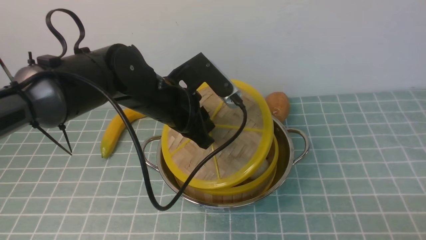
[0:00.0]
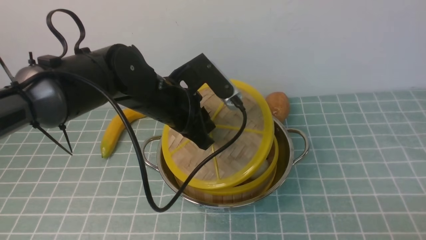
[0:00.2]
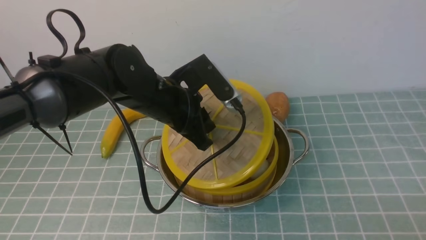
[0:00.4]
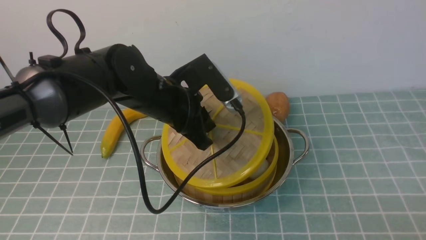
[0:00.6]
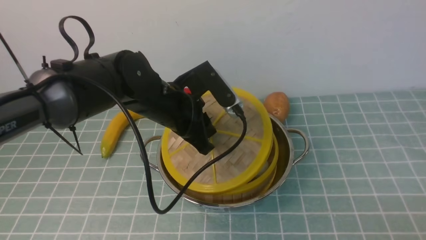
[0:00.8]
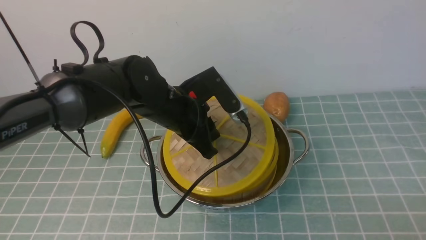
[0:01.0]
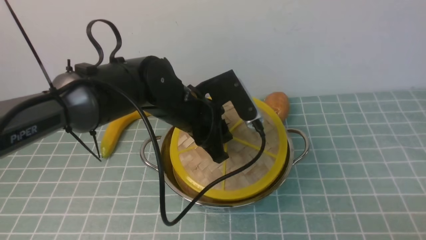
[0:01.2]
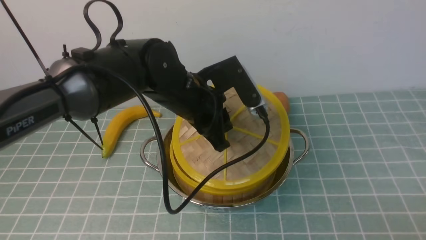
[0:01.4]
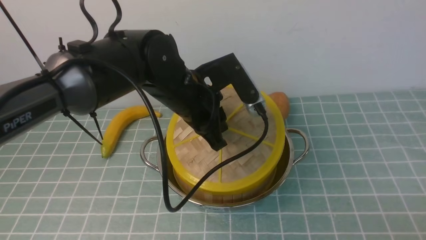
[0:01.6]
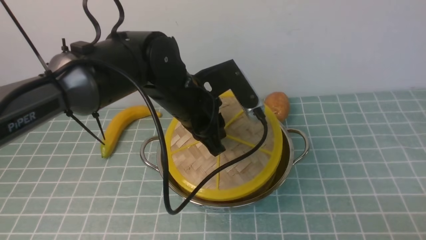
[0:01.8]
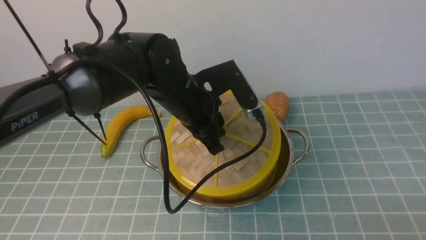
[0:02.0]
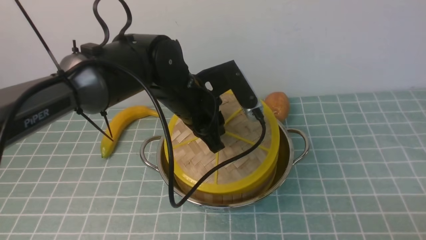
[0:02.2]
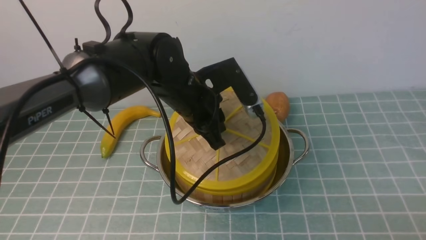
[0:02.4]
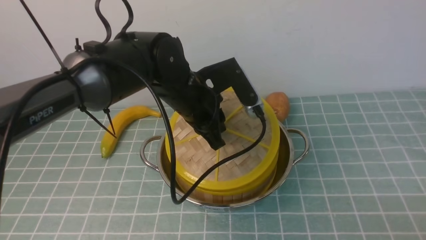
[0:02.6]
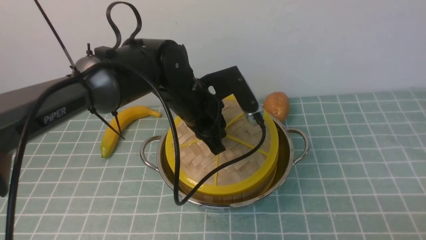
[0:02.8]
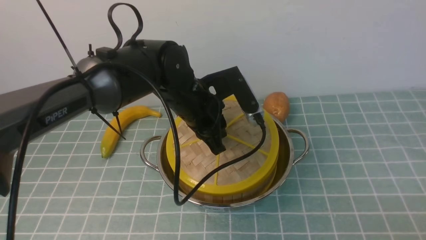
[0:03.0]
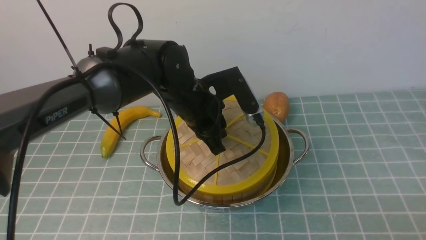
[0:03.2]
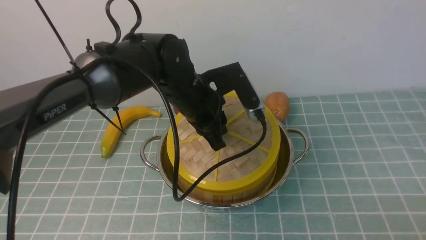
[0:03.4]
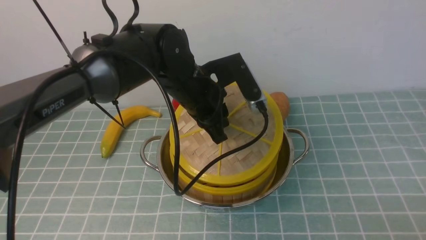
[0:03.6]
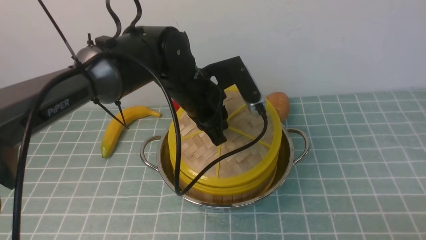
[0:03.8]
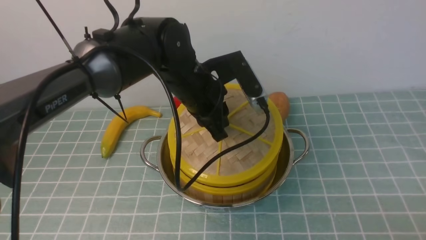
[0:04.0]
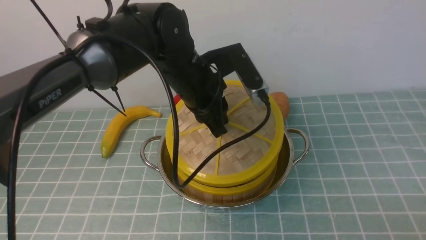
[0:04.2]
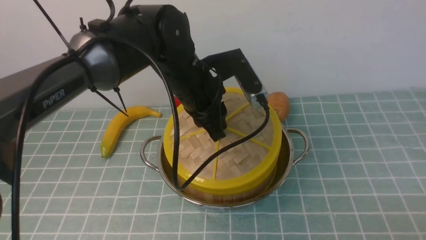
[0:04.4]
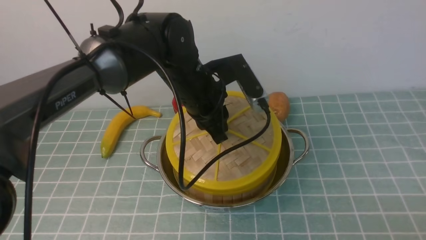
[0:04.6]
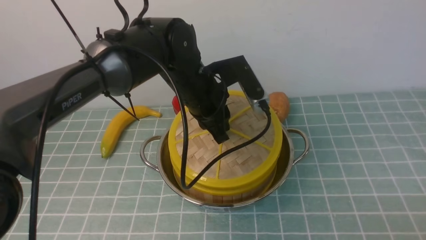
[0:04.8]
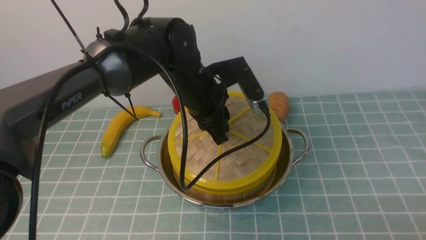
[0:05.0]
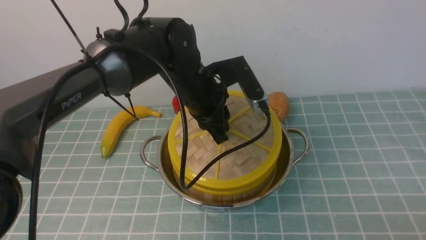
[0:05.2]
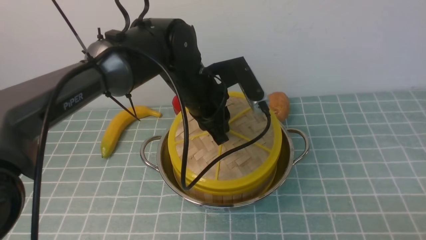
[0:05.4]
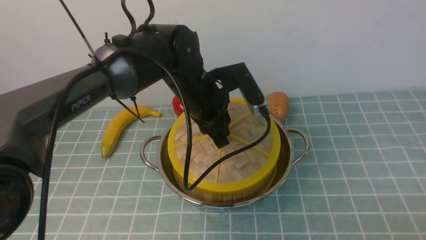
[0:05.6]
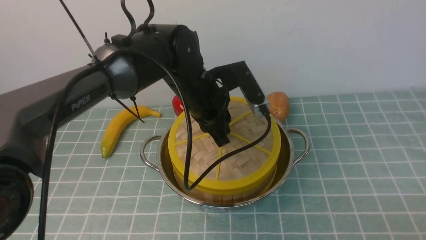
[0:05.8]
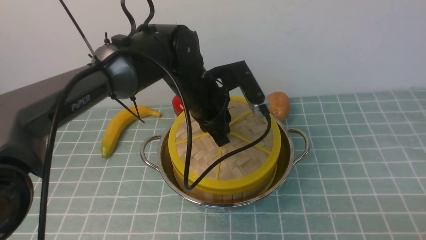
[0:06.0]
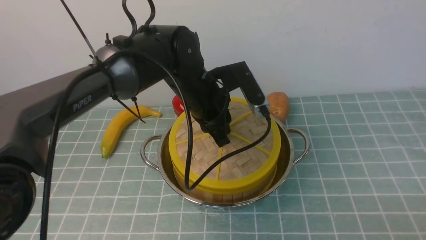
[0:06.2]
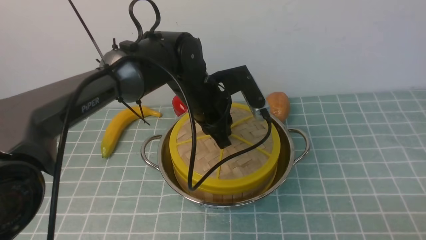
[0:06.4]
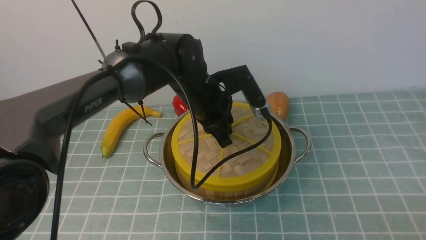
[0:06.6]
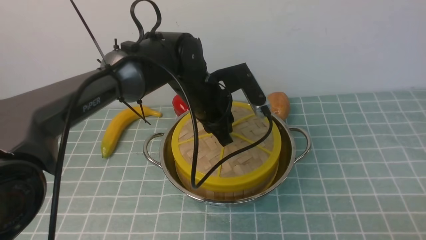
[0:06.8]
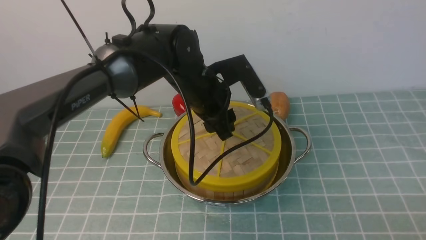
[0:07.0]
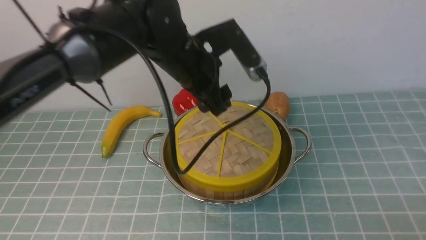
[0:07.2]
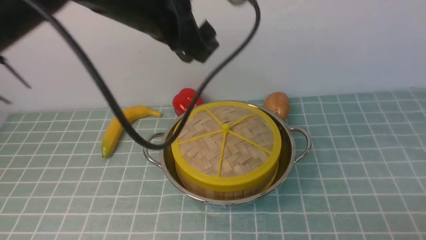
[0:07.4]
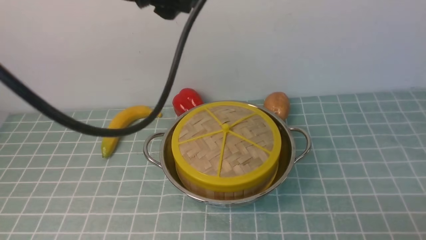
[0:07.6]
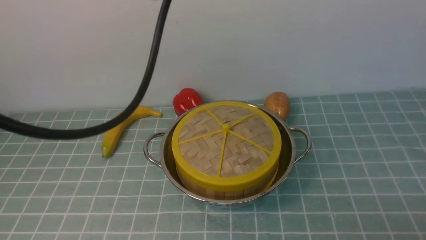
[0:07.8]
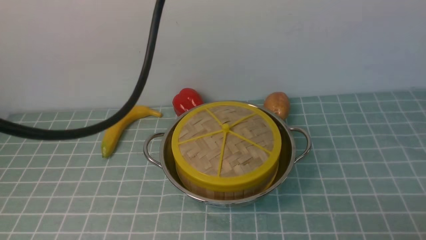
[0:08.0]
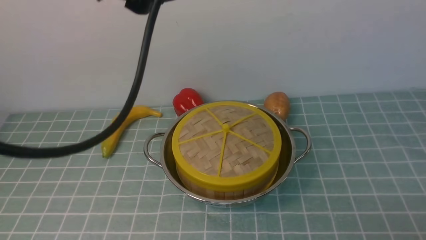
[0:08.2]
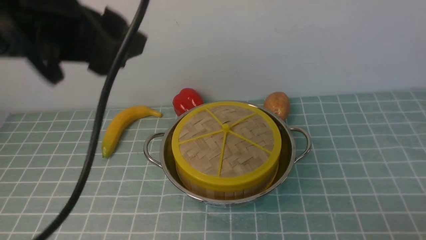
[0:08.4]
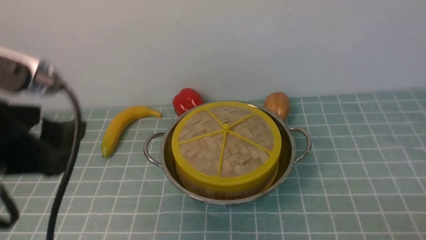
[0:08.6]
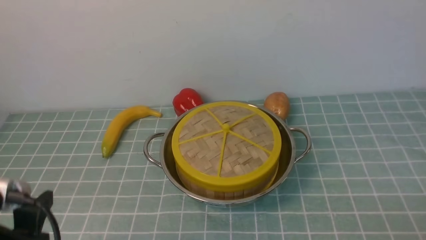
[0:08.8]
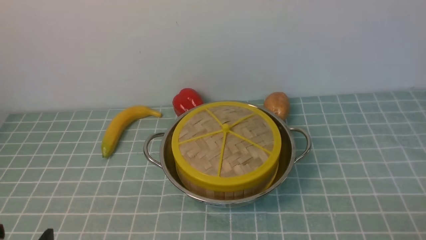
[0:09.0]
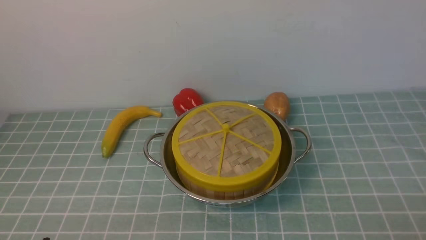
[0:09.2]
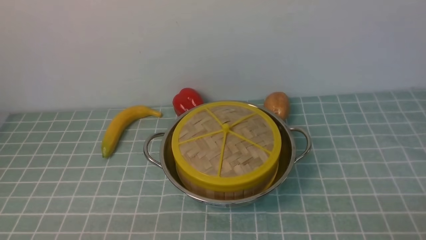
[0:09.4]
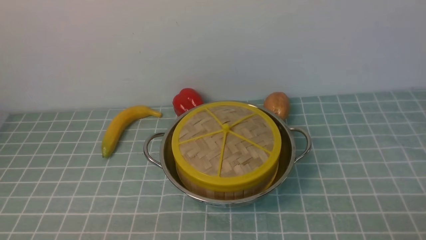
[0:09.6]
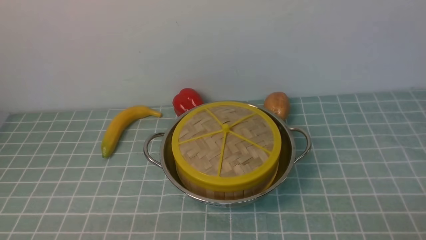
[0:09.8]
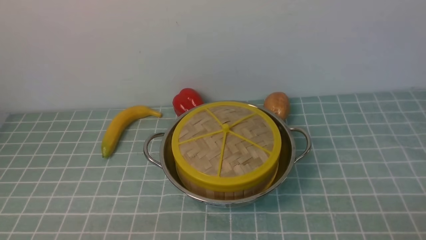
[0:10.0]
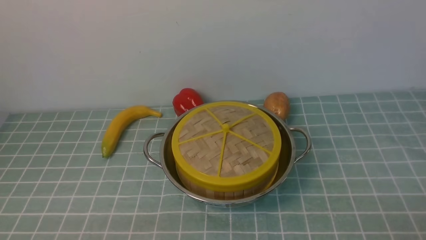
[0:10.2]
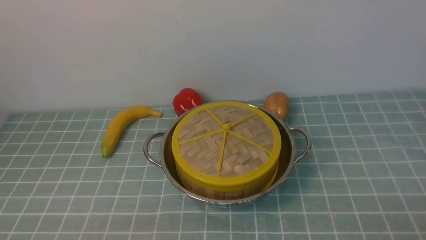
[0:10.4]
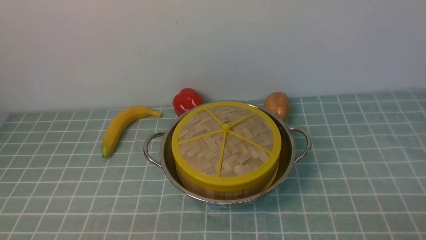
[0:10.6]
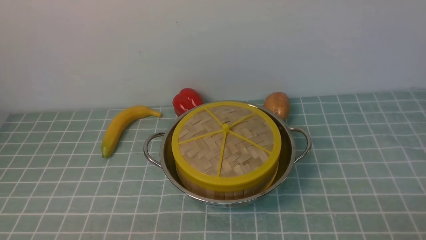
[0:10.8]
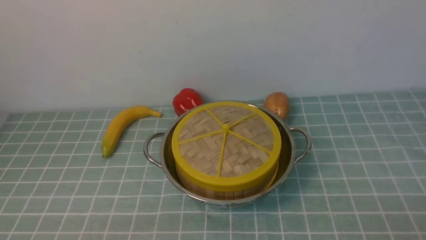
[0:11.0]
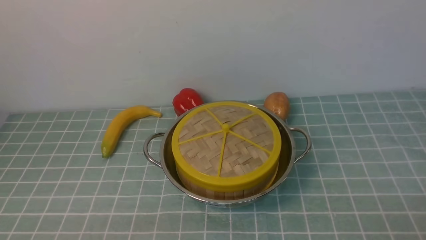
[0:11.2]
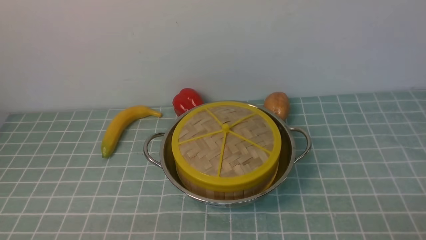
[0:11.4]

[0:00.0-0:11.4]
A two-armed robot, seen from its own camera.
Task of the whole recording: place the steamer in the pot on the blue tablecloth, and put the lid on the steamer.
Step, 0:00.0 to 0:07.2: use the left arm to place the steamer lid on the steamer.
0:00.0 to 0:02.8: There are only small adjustments of the grippers.
0:05.6 to 0:07.2: The left gripper shifts some 10 cm upward, and opens its fingers.
0:07.2 to 0:08.6: The left gripper moves backward and to the left, some 25 cm.
0:08.6 to 0:10.0: The left gripper travels downward and backward by about 20 cm.
0:10.0 to 0:11.4: Both grippers stay put.
